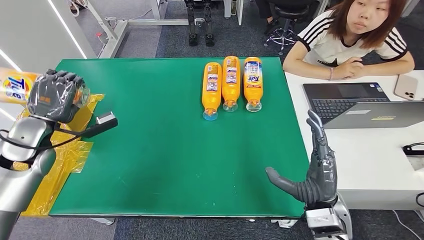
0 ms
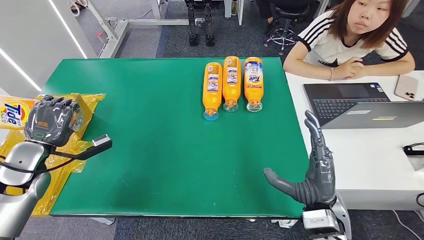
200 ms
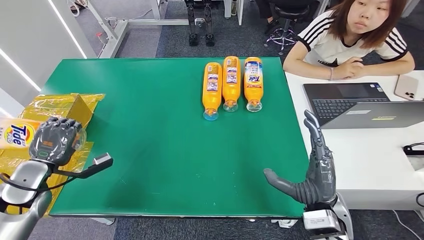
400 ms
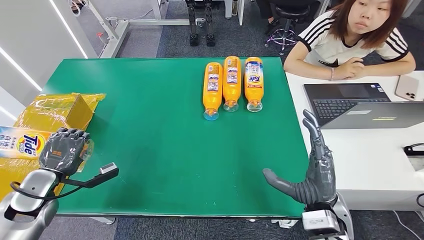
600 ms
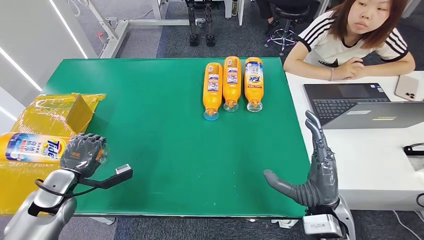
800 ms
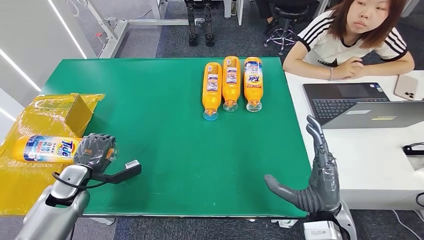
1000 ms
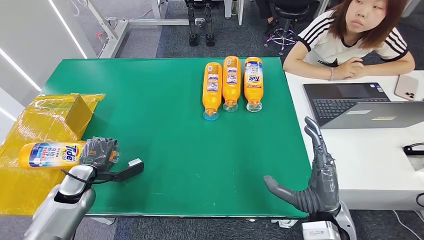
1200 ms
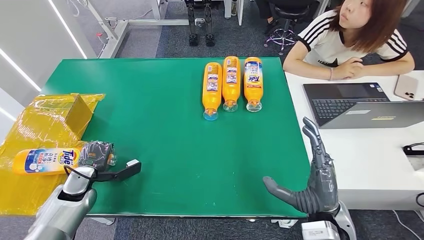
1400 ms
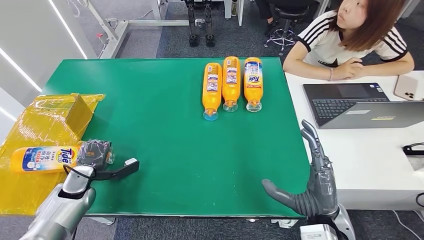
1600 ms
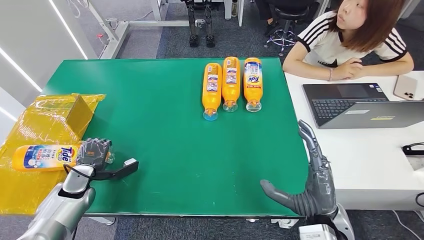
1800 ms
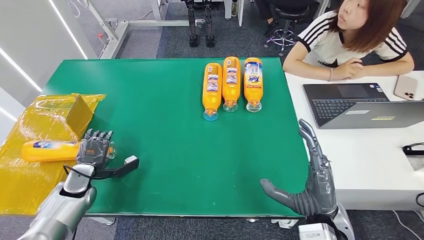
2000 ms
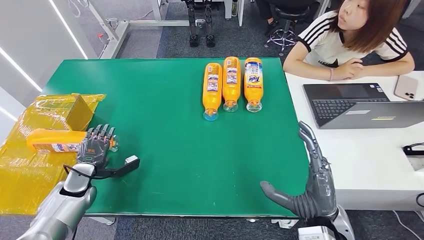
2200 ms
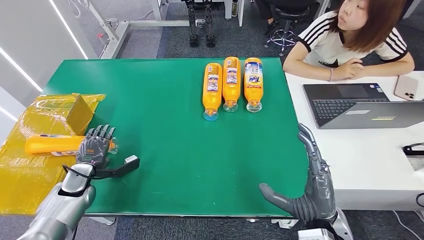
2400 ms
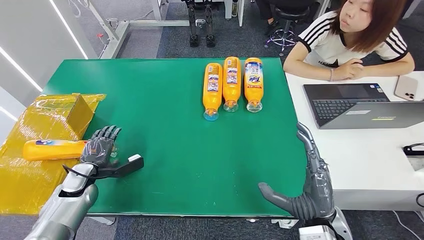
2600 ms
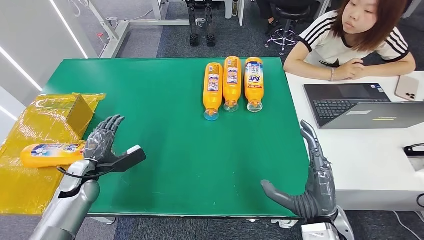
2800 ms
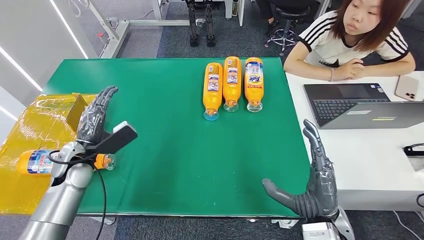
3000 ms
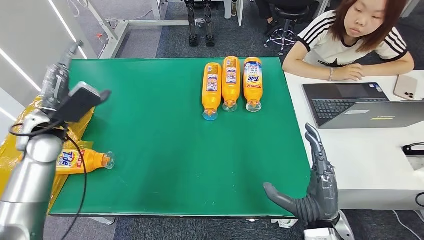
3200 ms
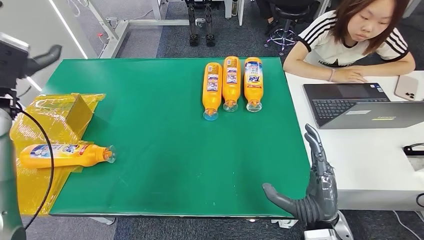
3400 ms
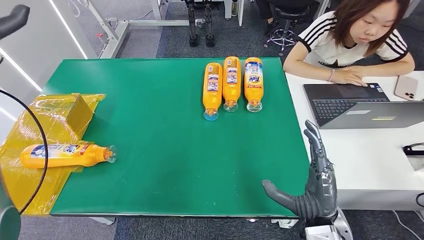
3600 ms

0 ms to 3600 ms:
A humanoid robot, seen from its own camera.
Step, 0 ms to 3600 ms: Turn the bottle to the front side.
1800 ms to 3600 ms: The left hand is displaced upward by roughly 35 cm.

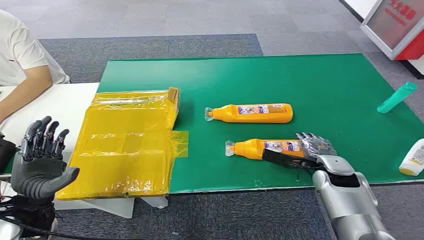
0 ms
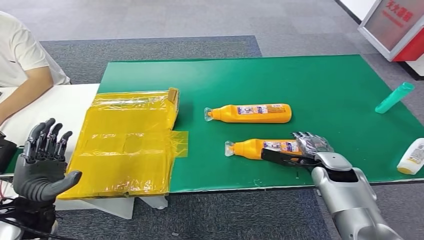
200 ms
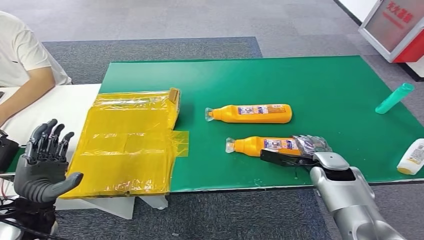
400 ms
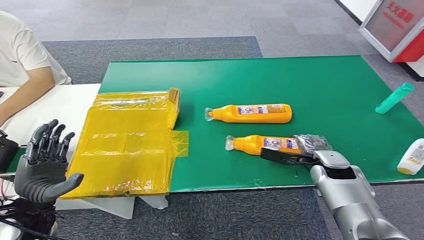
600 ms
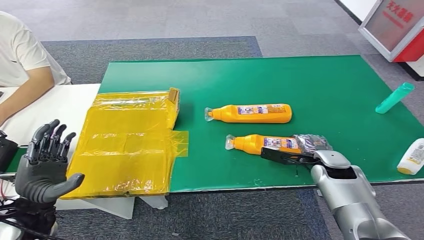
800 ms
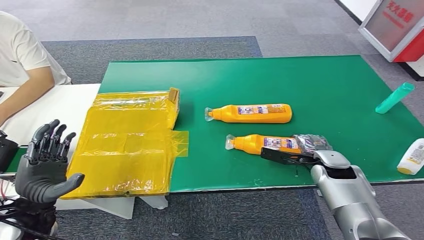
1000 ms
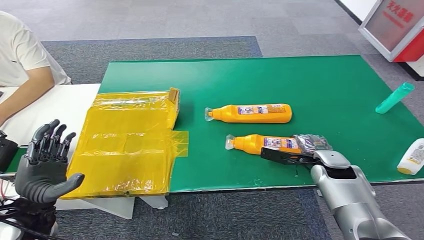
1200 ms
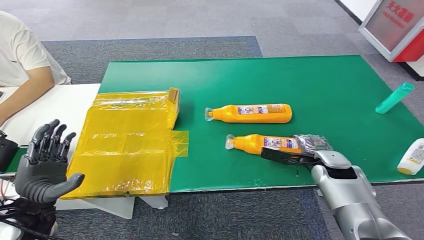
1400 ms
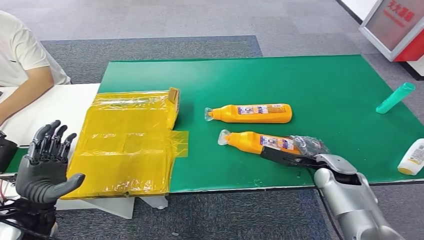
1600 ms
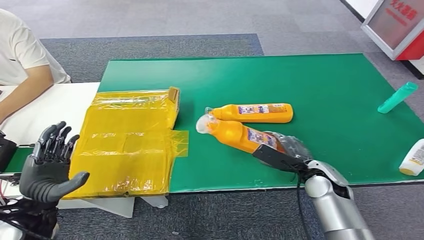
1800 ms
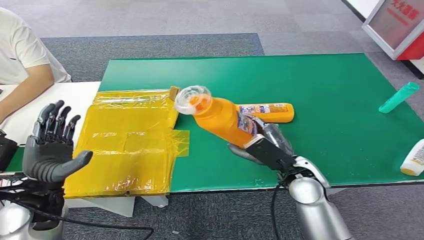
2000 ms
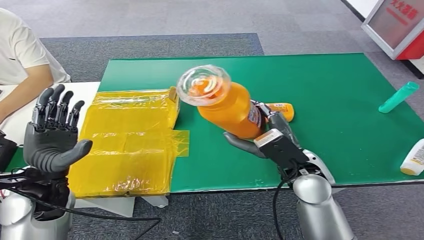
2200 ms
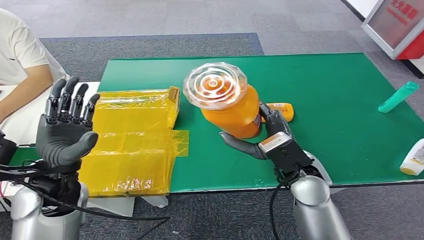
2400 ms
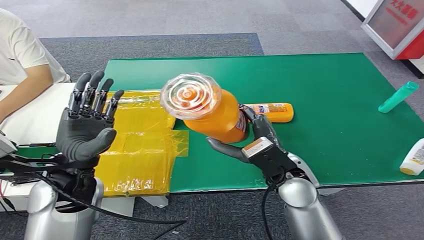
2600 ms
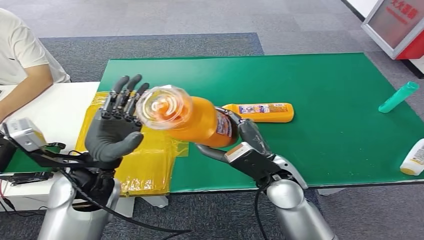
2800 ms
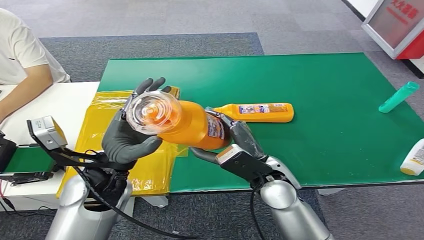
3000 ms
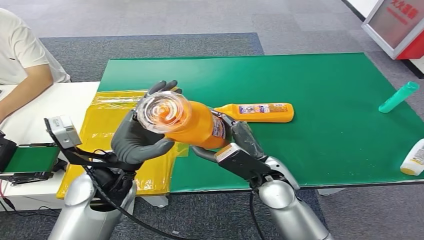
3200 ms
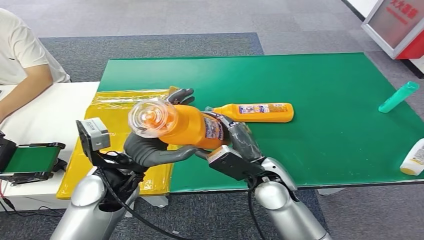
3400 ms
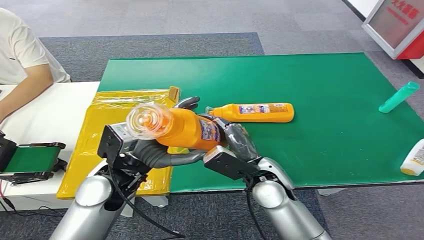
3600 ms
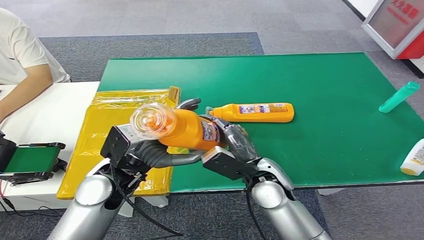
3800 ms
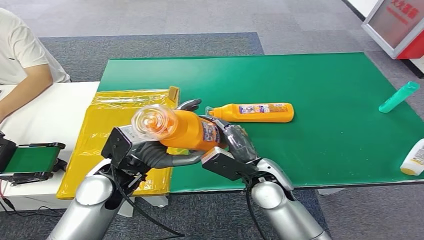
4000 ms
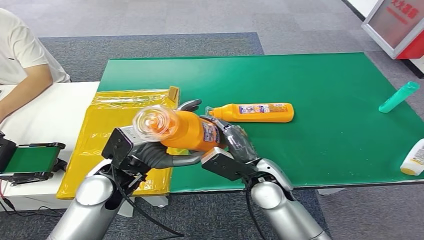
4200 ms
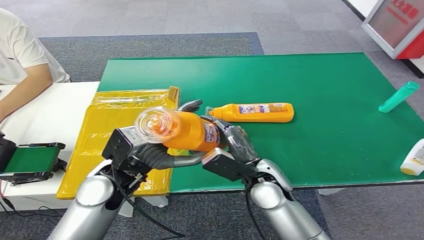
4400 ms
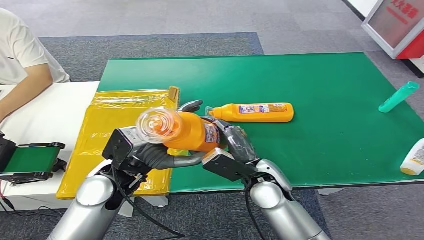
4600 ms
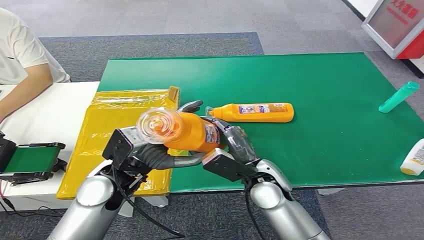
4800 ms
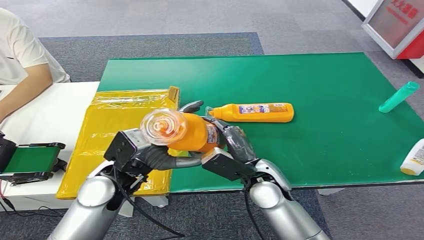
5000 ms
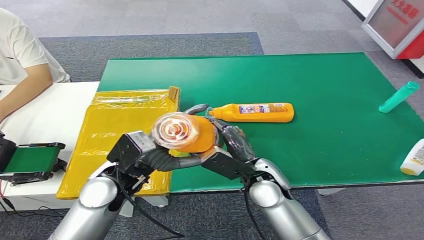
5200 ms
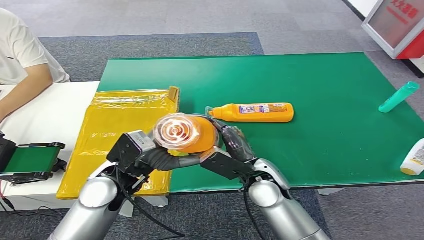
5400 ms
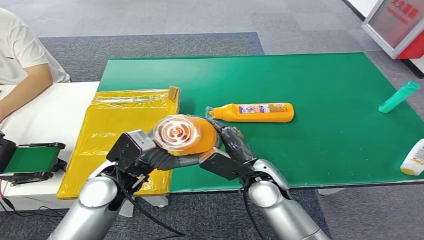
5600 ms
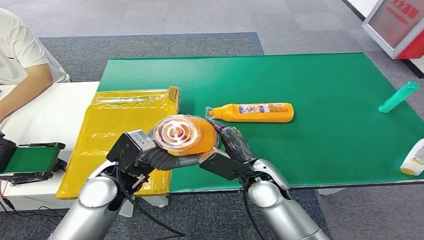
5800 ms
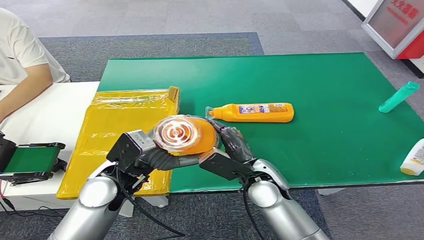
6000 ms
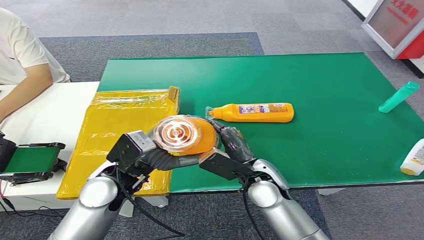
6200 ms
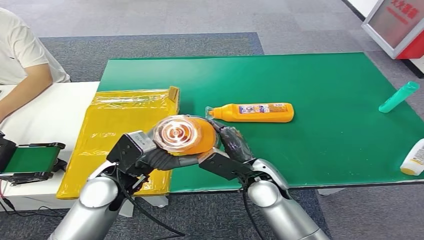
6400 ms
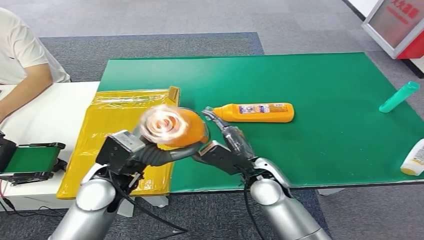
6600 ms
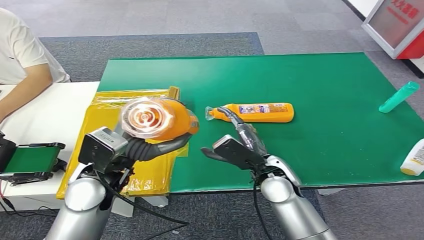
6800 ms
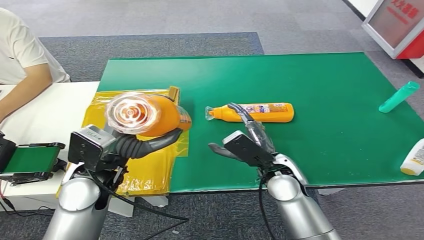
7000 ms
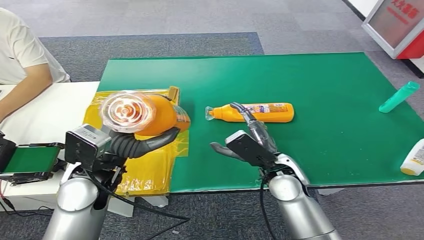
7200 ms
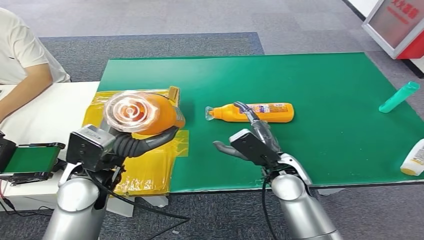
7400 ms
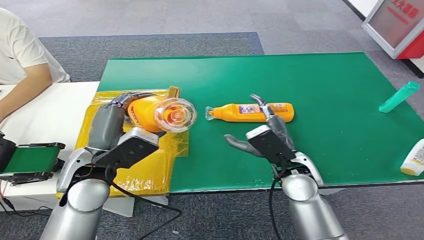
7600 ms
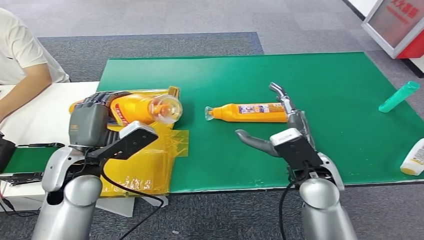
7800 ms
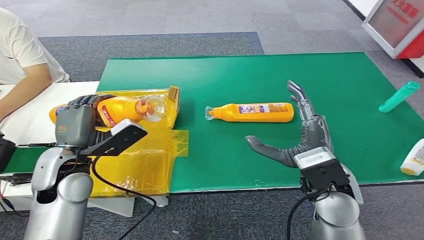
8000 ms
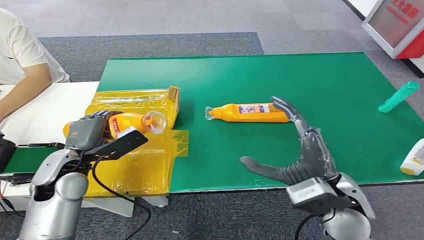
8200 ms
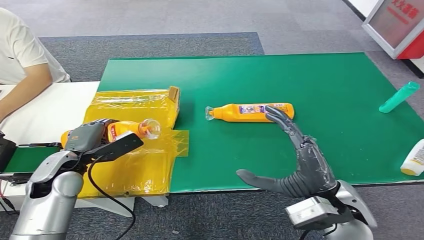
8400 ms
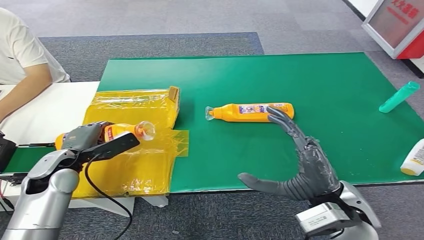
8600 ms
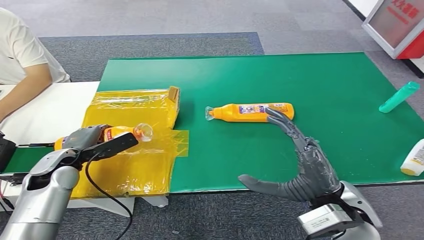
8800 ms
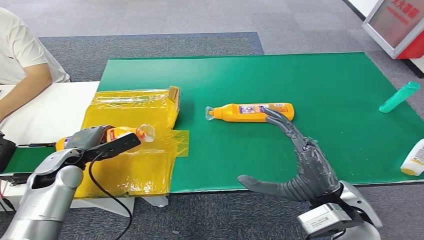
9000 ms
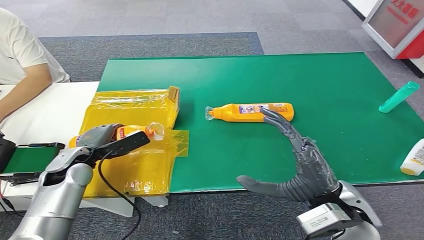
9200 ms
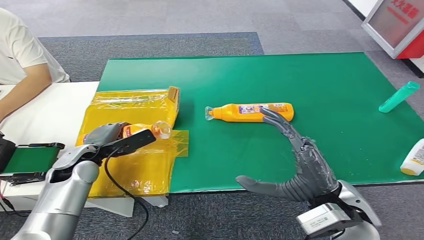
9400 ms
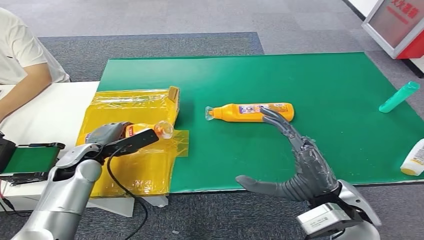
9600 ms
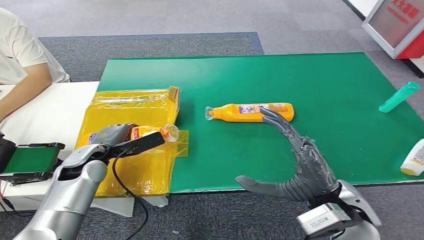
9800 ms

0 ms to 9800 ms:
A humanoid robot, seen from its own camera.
Step, 0 ms to 2200 ms: Pick up the bottle from the table.
4200 ms to 5600 ms: Neither hand changes place.
7000 ms to 8400 ms: The right hand moves backward, upward and to the right, approximately 15 cm. Meanwhile the left hand heads to the left and downward, covering some 15 cm.
8400 ms to 9800 ms: The left hand moves some 5 cm.

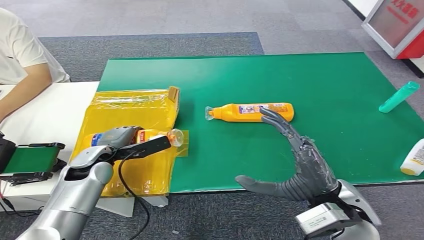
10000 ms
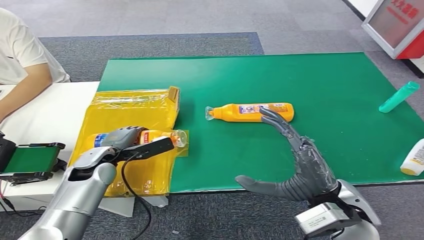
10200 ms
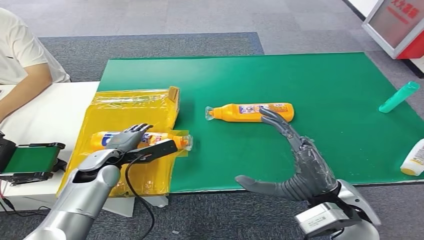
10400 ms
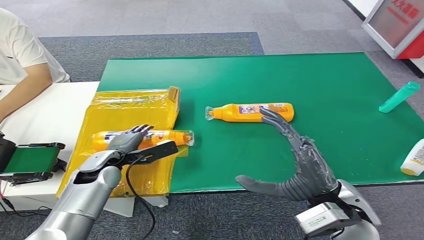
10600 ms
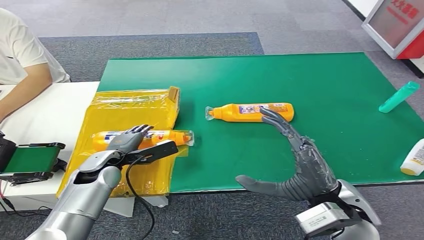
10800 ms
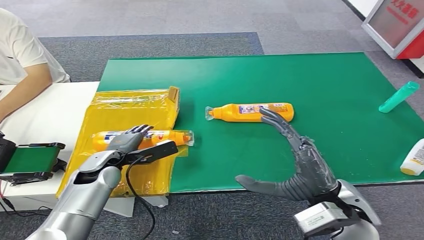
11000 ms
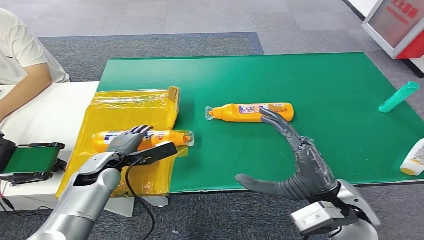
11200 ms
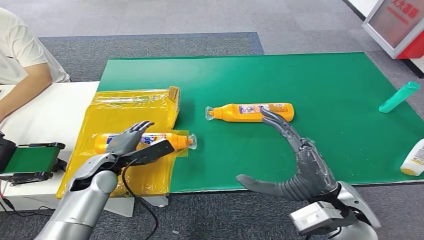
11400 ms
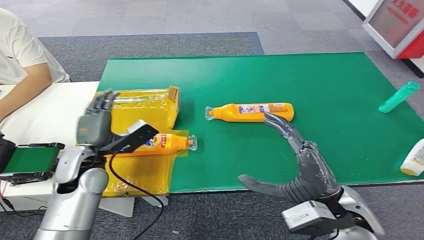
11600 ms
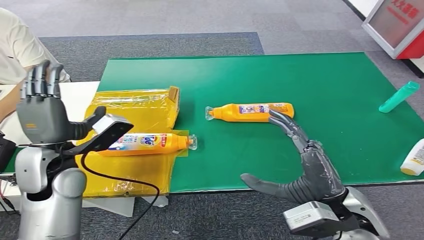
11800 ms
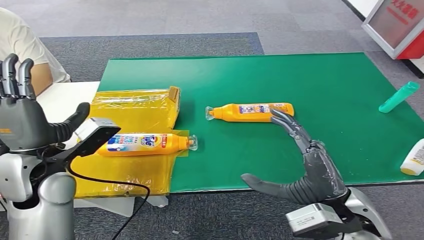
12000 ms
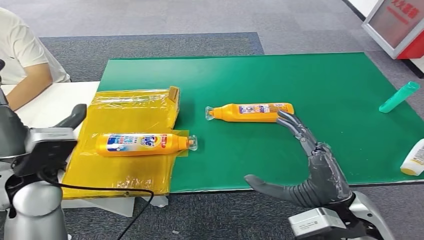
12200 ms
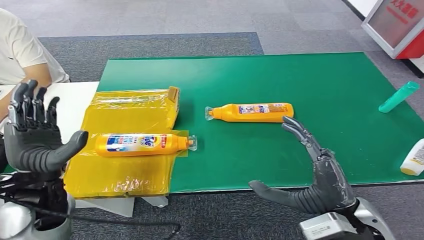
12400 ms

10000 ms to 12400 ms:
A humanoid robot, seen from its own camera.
Step, 10000 ms to 12400 ms: Turn the bottle to the front side.
10000 ms to 11200 ms: The hands make only small movements.
11200 ms to 12400 ms: The left hand heads upward and backward, covering roughly 15 cm.
